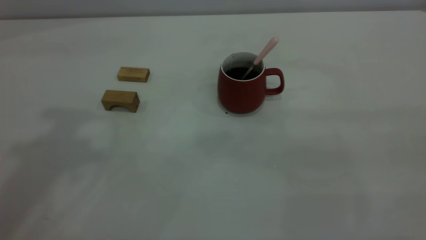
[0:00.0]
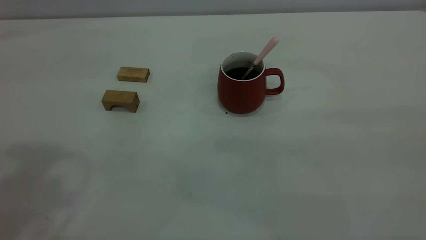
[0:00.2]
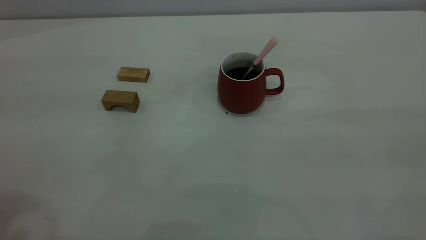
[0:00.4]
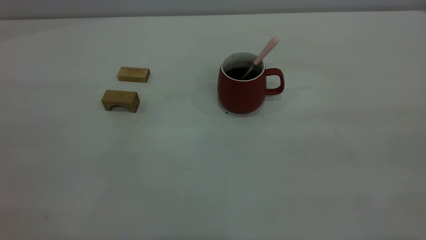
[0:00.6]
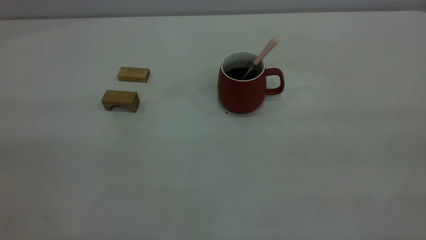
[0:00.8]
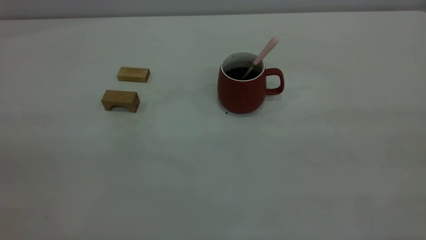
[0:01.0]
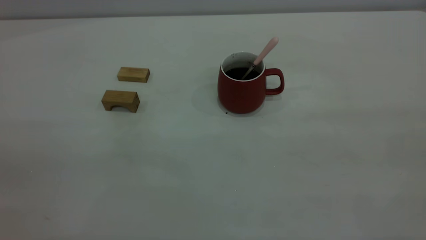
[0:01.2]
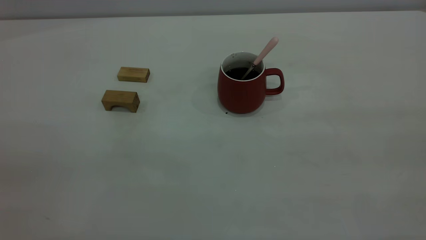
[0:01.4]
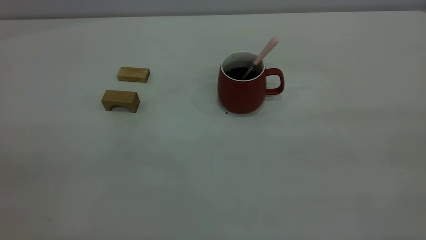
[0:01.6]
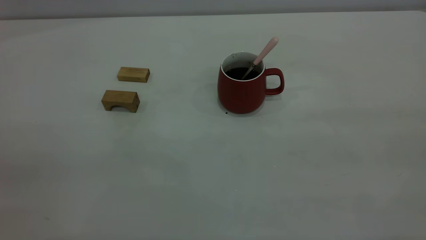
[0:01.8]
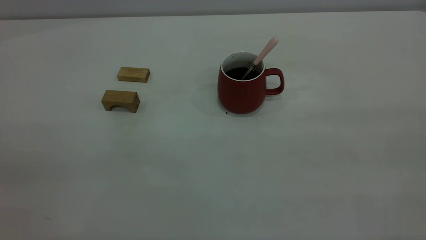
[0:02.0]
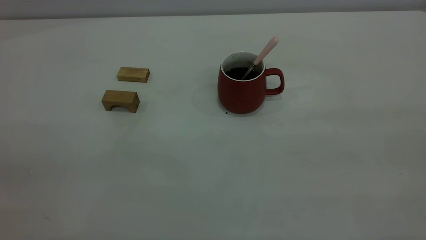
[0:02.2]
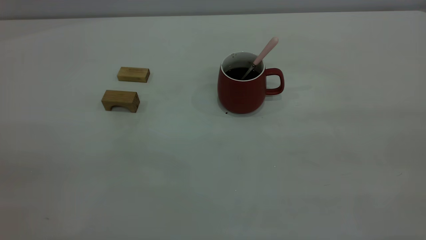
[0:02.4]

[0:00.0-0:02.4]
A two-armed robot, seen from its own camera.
0:01.2 to 0:02.4: Both grippers stay put.
